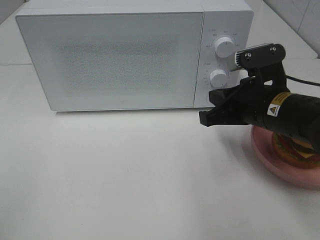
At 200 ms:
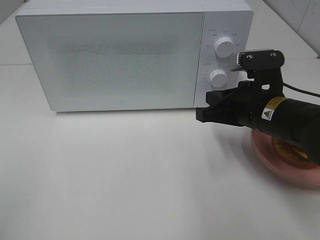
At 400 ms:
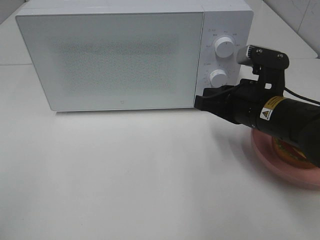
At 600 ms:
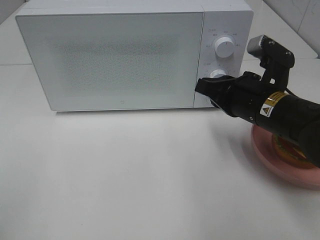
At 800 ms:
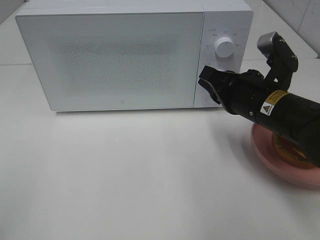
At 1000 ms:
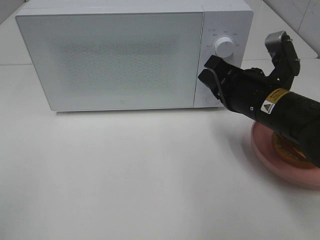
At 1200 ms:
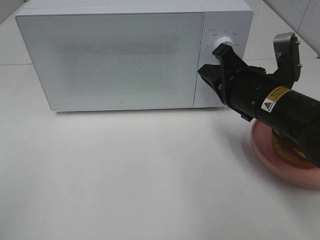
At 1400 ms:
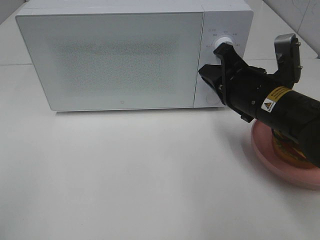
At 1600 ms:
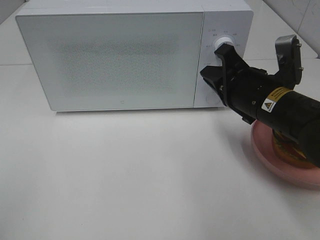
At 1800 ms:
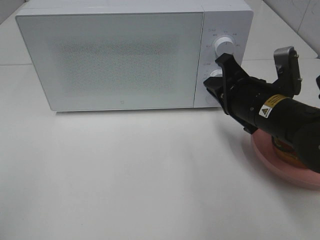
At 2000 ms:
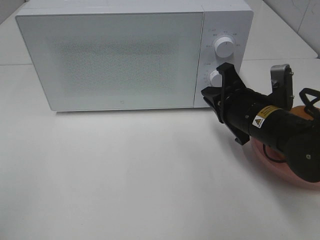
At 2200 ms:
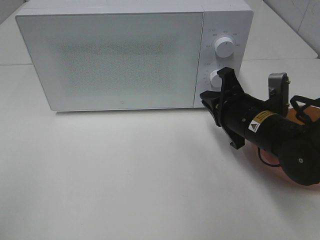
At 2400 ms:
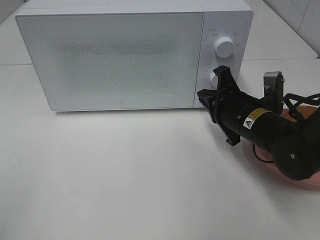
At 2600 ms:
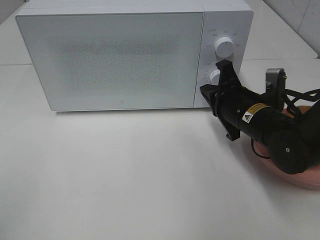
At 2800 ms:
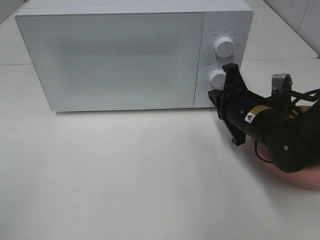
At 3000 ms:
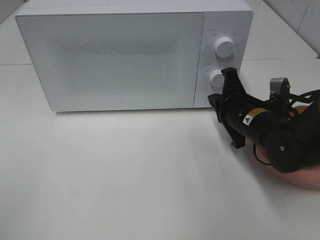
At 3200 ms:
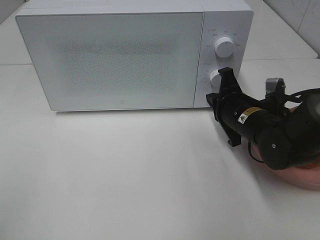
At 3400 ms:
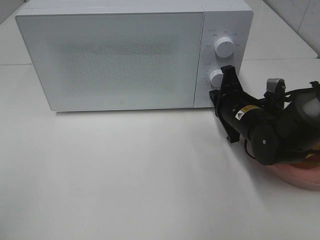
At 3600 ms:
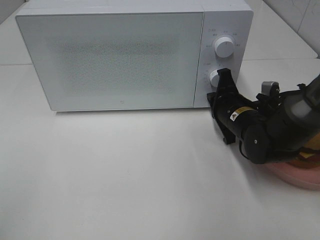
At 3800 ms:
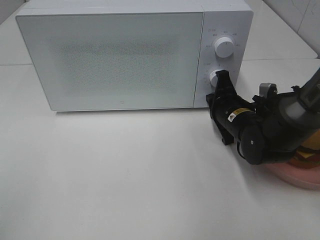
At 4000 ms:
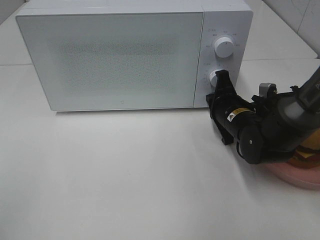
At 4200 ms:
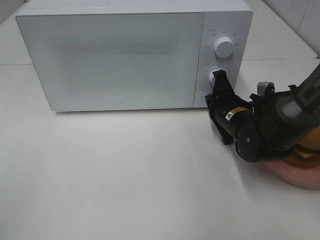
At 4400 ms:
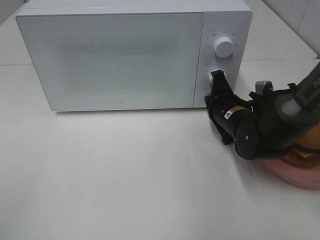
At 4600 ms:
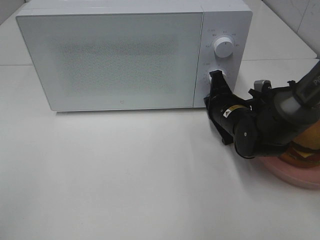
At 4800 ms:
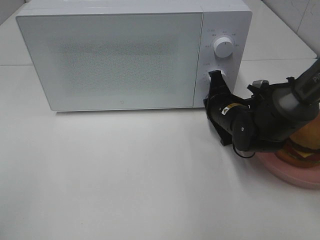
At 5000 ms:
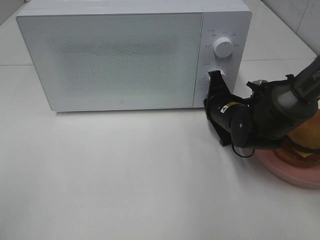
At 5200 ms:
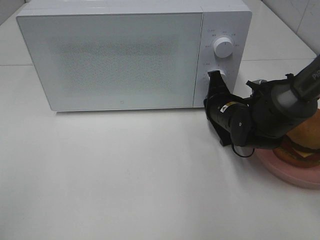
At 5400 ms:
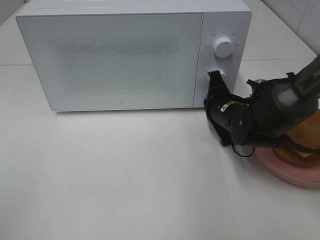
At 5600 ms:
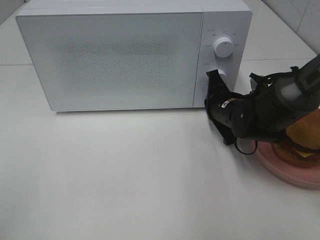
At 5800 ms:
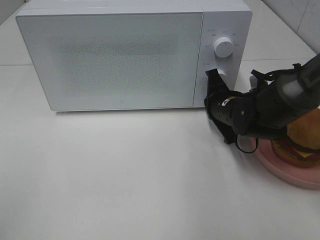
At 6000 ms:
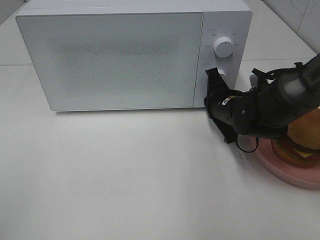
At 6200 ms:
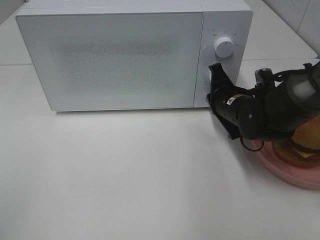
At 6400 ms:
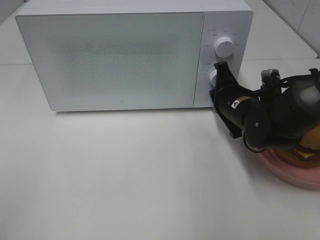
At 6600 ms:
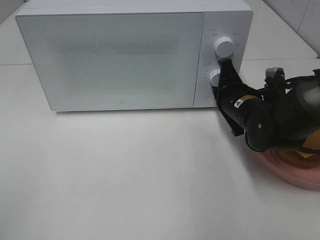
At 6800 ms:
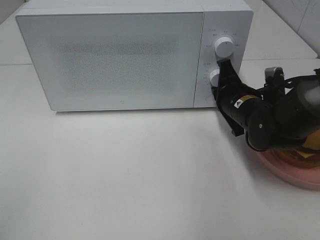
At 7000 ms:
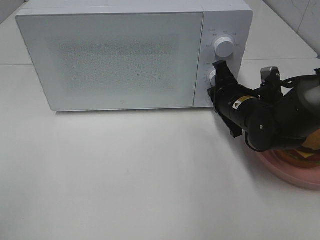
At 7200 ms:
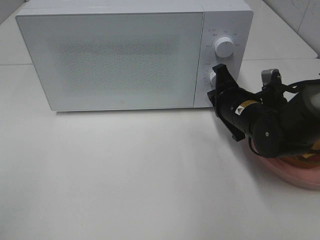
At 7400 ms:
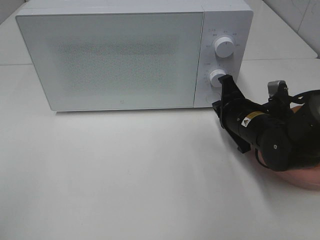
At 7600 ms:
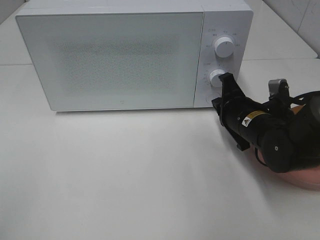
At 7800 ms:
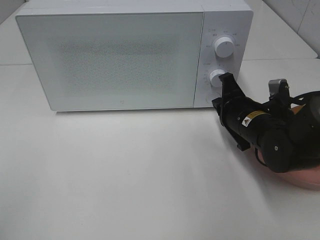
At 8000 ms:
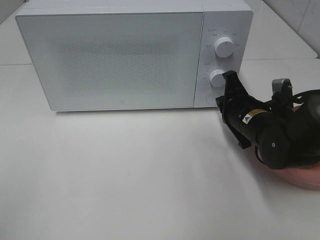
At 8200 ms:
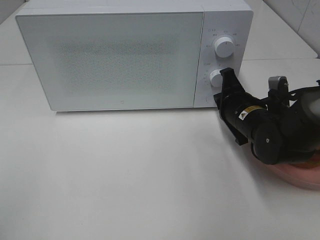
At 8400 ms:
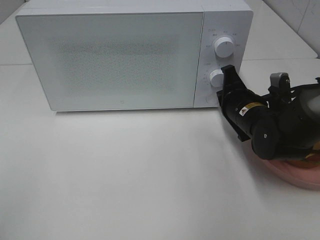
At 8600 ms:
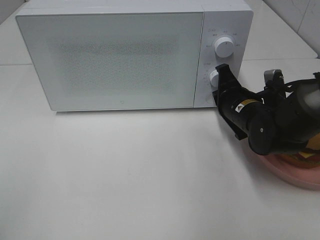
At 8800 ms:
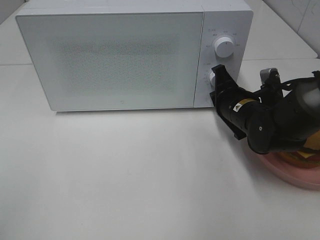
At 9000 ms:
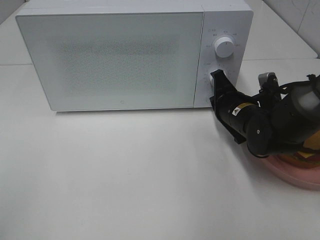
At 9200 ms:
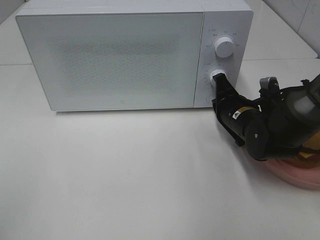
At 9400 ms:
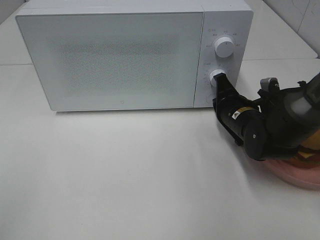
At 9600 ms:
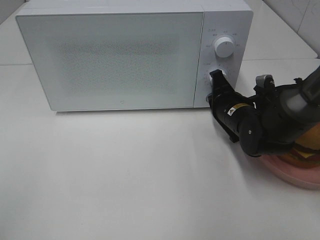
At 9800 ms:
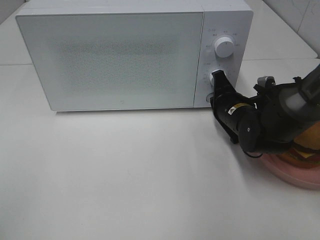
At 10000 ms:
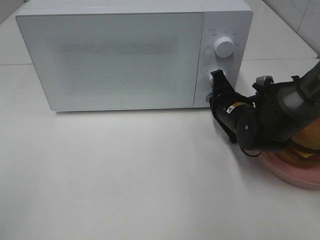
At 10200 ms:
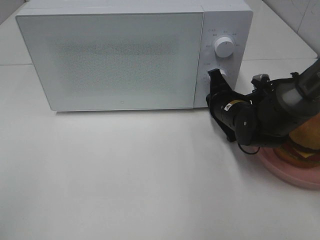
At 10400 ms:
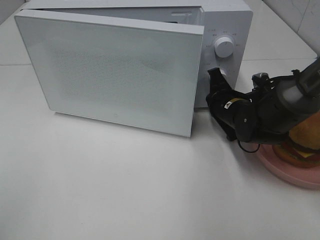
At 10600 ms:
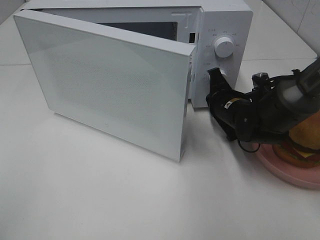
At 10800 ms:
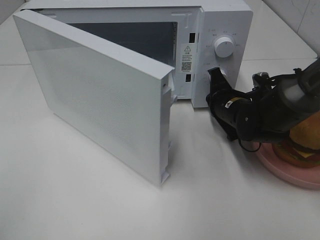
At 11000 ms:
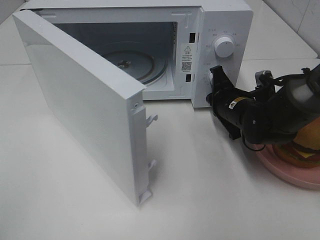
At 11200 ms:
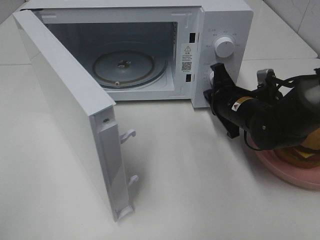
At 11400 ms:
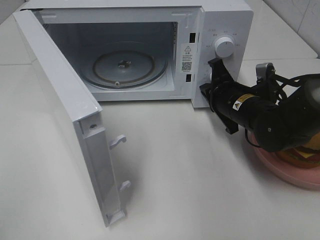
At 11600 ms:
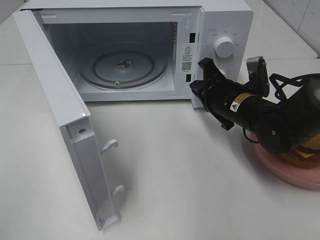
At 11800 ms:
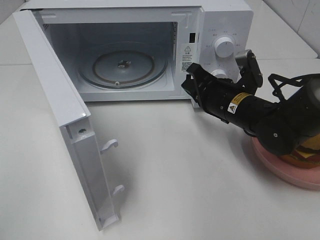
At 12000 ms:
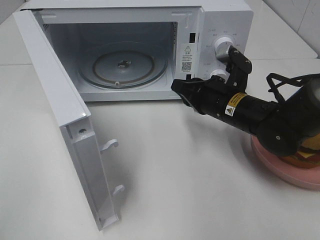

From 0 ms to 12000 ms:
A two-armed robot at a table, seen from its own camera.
Task of the whole recording: Heat the burger.
Step, from 0 ms to 11200 ms: Right hand: press the switch.
From 1600 ms to 3000 ms: The right gripper heads downward, covering approximately 5 cm.
From 3000 ms to 4400 ms: The right gripper moves approximately 5 cm.
From 4400 ms to 6000 ms: The grippers move only a little.
From 6000 ms to 7600 ms: The right gripper travels backward by approximately 5 cm.
From 7600 ms to 10400 ms: There are only small adjustments of the grippers.
From 10400 ms to 12000 ms: The right gripper ends up roughly 5 cm from where it was.

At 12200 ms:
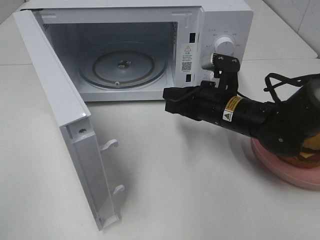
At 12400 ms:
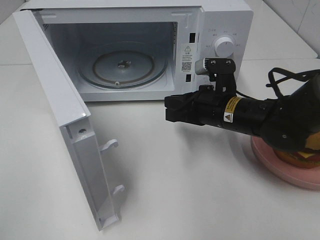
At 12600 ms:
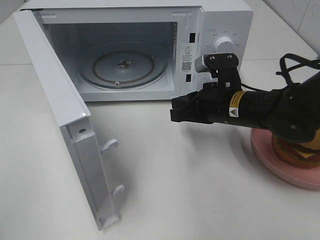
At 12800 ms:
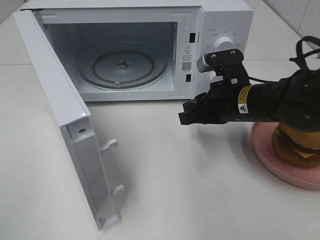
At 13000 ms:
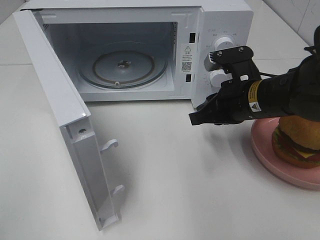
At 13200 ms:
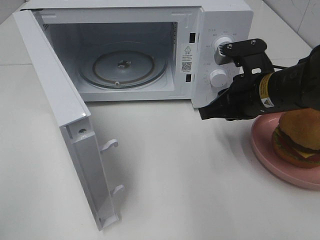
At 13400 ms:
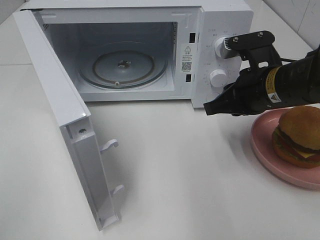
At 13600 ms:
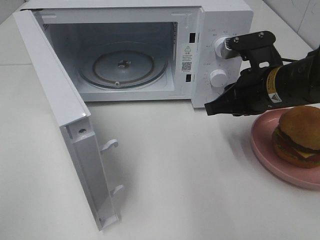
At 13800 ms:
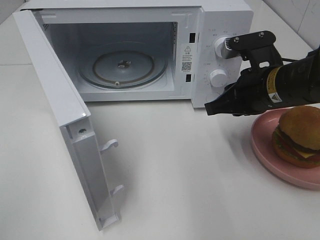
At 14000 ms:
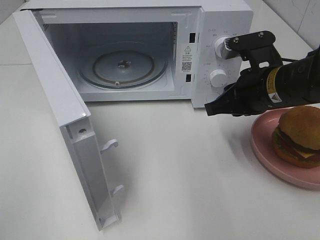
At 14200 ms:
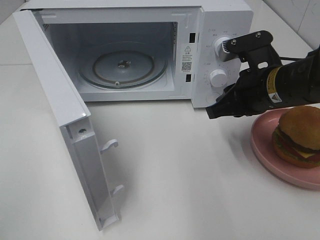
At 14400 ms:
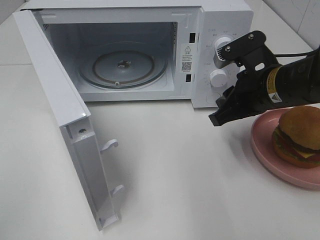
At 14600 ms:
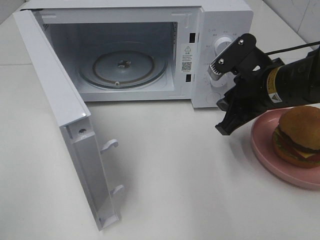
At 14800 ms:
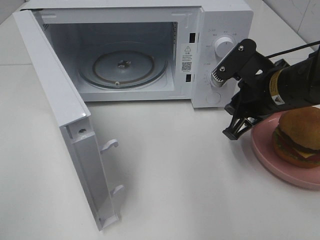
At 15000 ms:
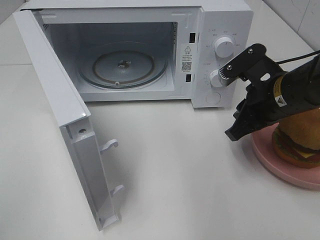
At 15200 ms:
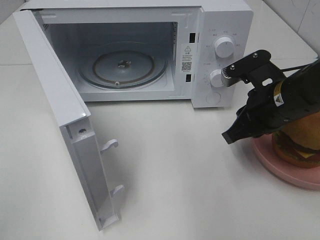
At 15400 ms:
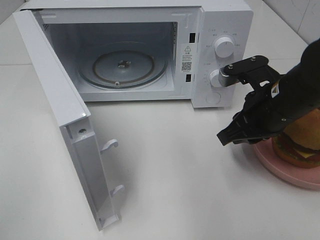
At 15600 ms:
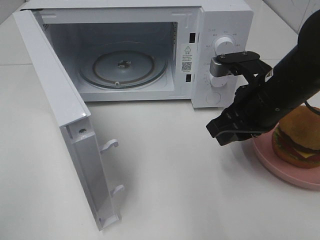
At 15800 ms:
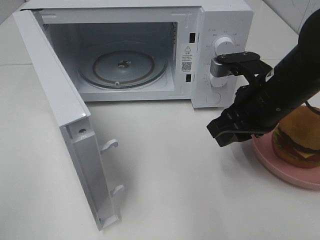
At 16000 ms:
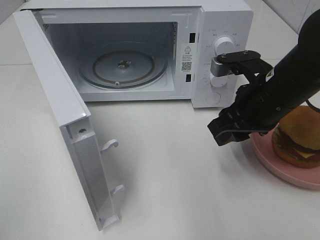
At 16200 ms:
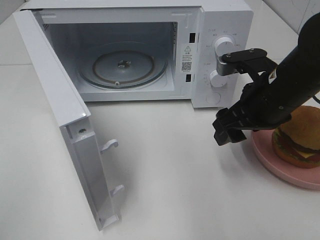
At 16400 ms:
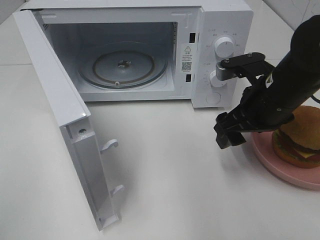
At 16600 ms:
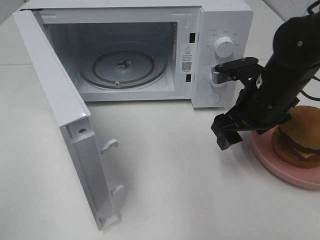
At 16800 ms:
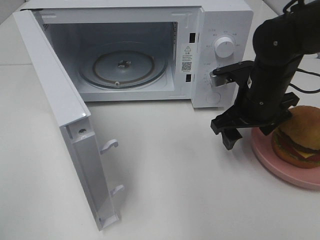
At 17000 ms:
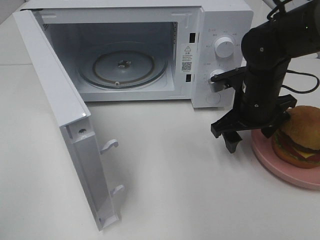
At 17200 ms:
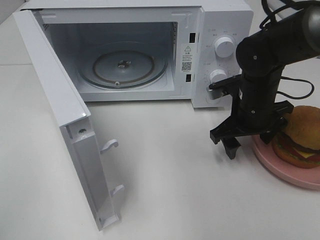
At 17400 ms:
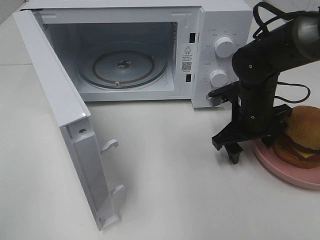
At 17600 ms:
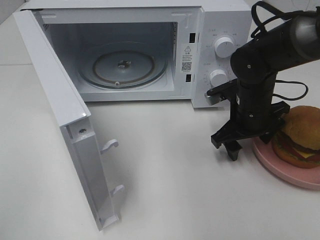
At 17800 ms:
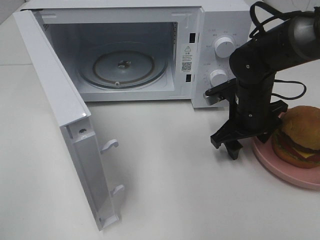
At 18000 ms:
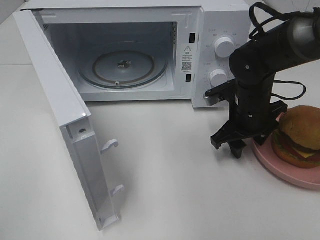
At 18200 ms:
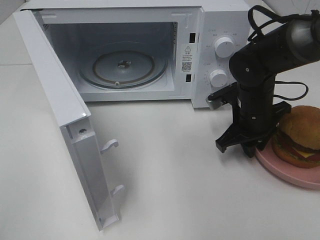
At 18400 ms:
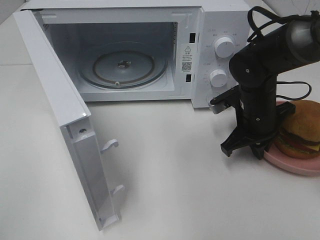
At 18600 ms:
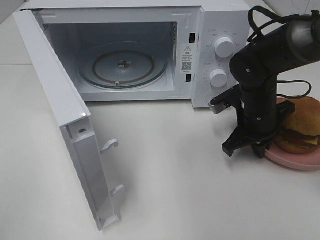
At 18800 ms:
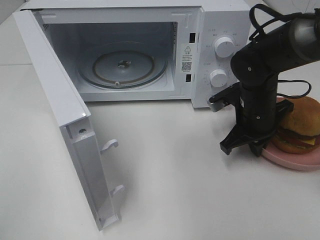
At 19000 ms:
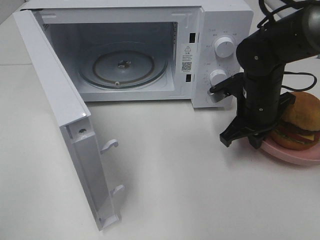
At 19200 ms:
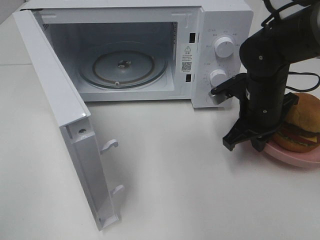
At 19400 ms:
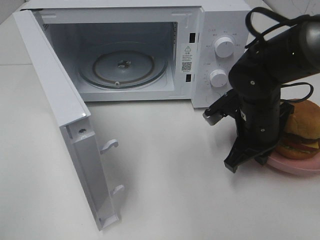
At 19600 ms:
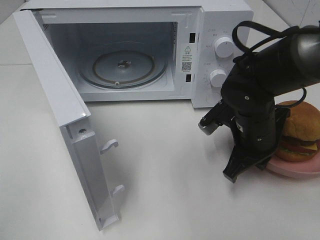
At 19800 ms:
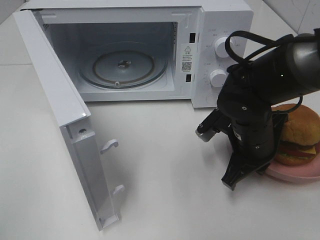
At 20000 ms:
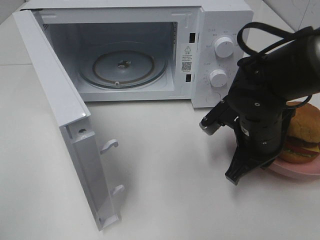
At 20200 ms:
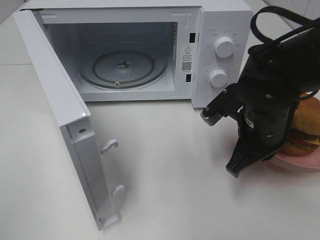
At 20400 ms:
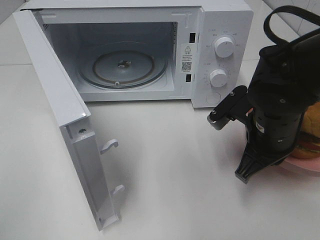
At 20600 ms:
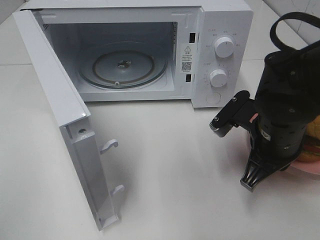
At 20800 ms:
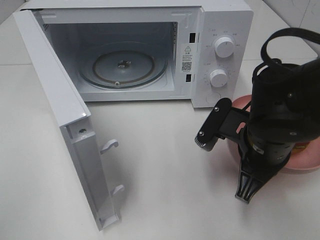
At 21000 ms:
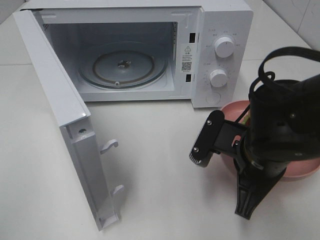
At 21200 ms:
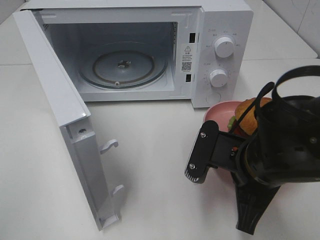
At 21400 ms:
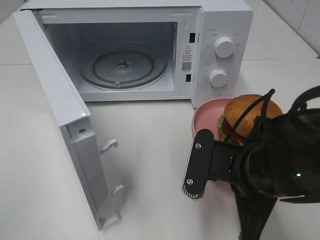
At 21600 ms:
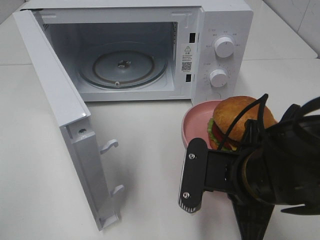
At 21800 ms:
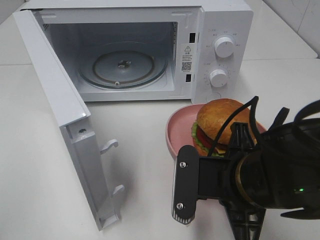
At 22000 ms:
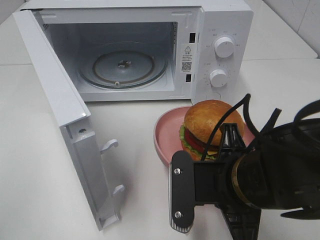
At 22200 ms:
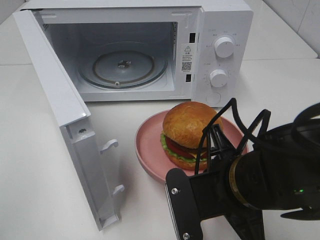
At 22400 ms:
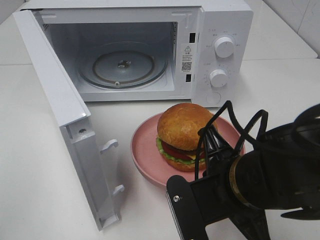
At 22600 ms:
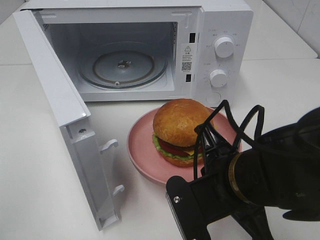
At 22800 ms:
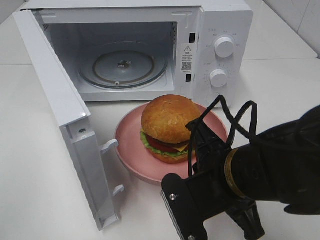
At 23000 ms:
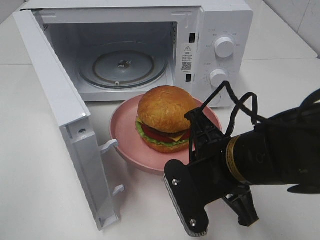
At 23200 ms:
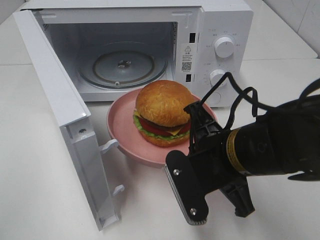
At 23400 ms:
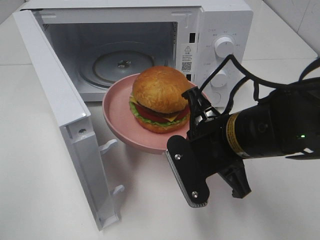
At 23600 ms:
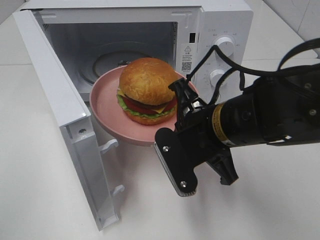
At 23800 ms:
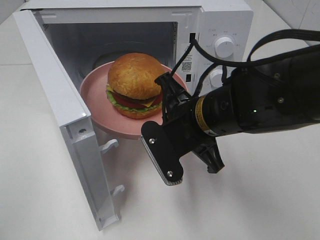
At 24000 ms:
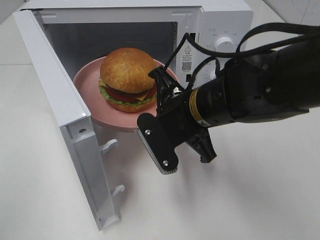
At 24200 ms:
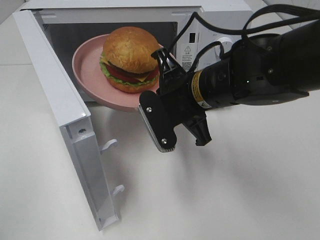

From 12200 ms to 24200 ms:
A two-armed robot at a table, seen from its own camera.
Task of the whole recording: Heat the burger.
Step, from 12200 ms to 18400 ms: Right hand: grab the plate with the hamburger.
From 12200 ms to 13800 ms: The right gripper is displaced upward by roughly 5 cm.
From 15200 ms to 16600 ms: The right gripper opens its fingers.
From 16600 ms to 18200 ms: The right gripper heads downward, covering approximately 5 cm, and closes.
From 18200 ms to 19800 ms: The right gripper travels backward by approximately 5 cm.
From 19800 ms to 21200 ms: The right gripper shifts some 10 cm backward.
From 22600 ms to 24200 ms: The right gripper shifts about 10 cm forward.
